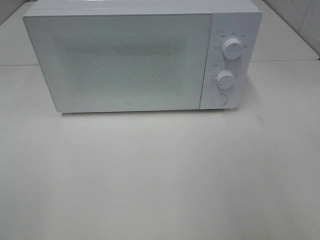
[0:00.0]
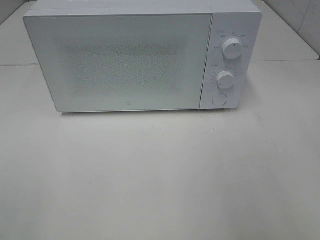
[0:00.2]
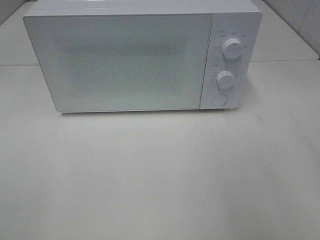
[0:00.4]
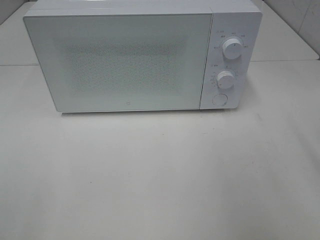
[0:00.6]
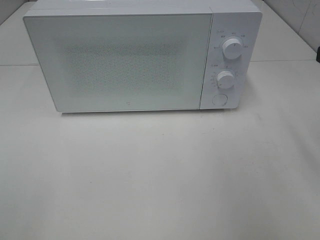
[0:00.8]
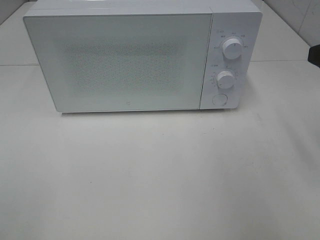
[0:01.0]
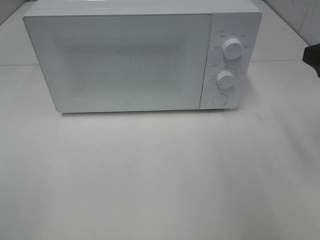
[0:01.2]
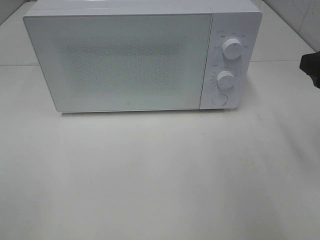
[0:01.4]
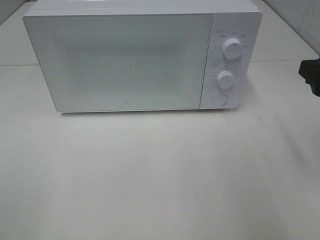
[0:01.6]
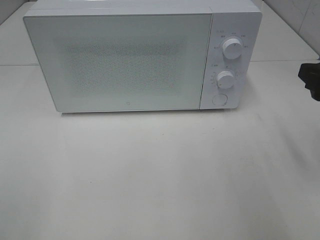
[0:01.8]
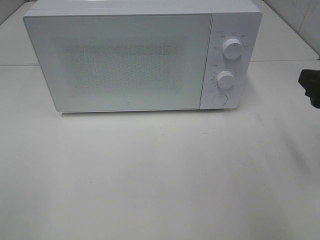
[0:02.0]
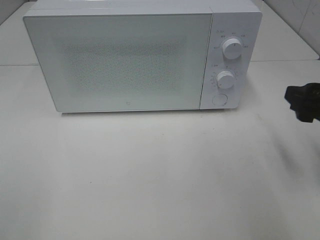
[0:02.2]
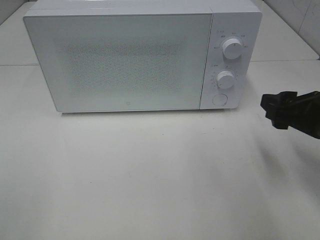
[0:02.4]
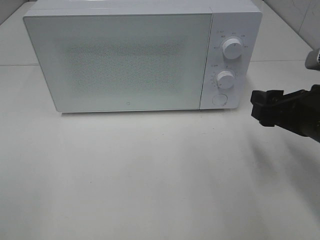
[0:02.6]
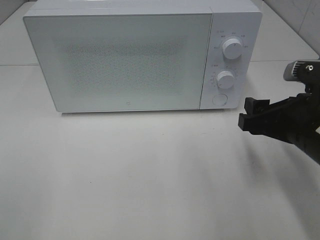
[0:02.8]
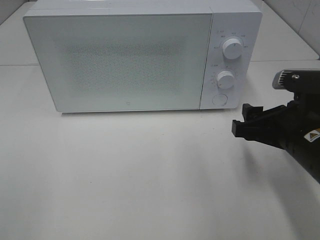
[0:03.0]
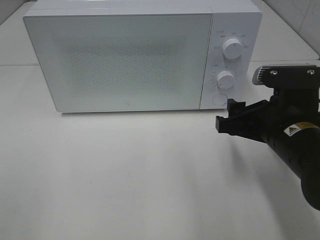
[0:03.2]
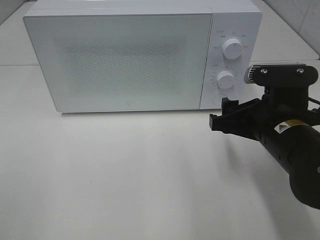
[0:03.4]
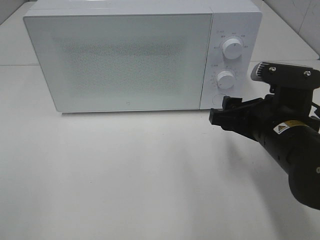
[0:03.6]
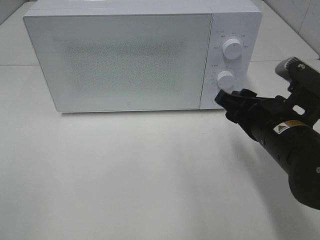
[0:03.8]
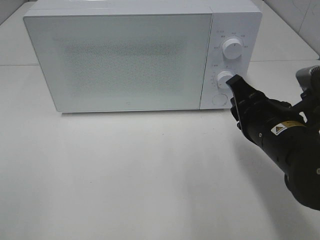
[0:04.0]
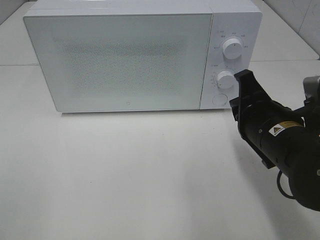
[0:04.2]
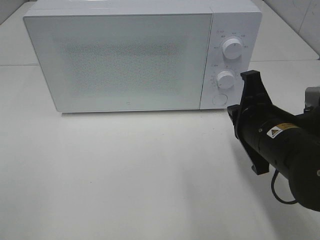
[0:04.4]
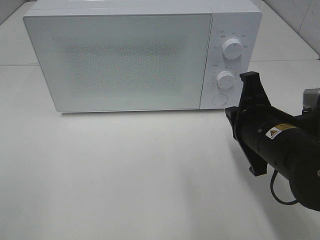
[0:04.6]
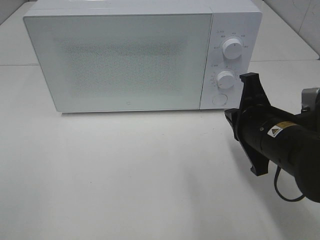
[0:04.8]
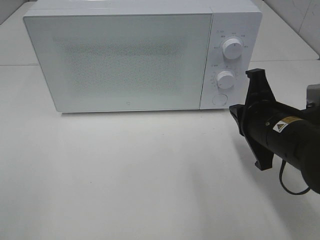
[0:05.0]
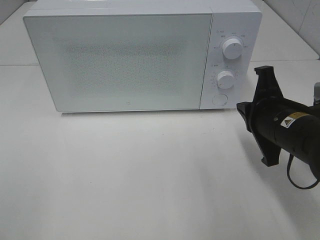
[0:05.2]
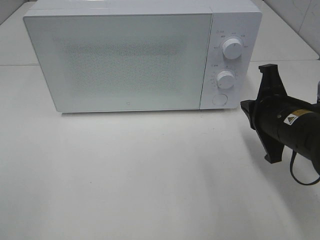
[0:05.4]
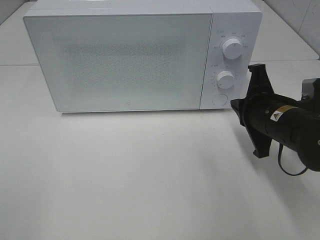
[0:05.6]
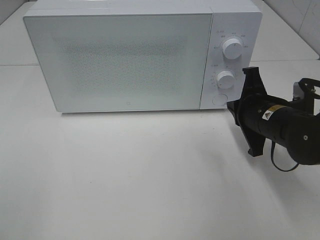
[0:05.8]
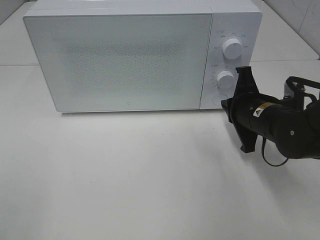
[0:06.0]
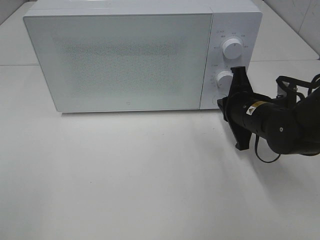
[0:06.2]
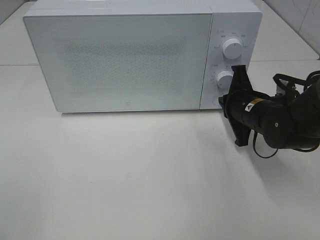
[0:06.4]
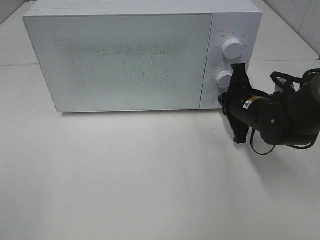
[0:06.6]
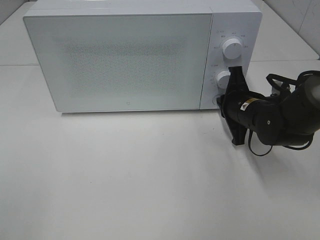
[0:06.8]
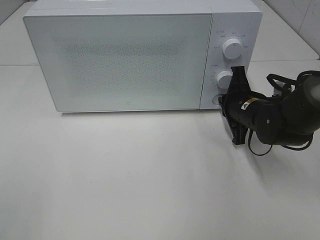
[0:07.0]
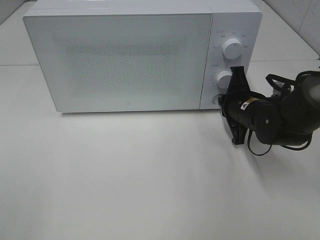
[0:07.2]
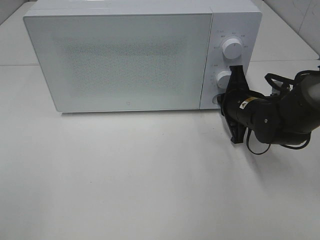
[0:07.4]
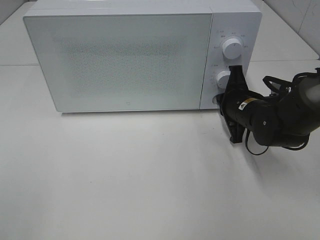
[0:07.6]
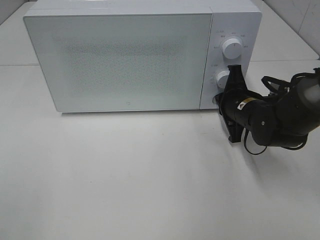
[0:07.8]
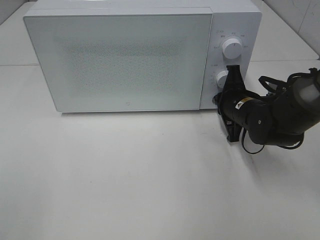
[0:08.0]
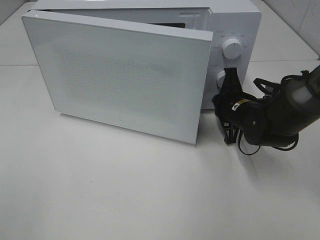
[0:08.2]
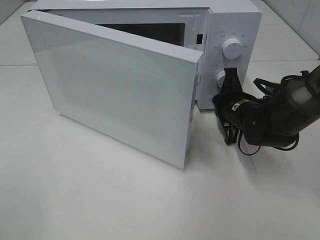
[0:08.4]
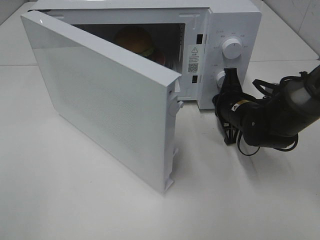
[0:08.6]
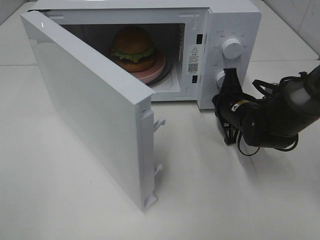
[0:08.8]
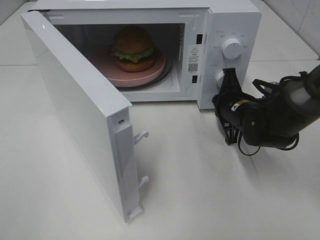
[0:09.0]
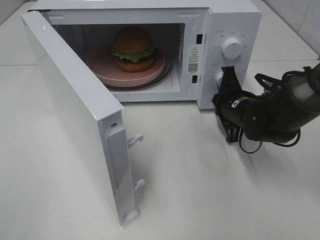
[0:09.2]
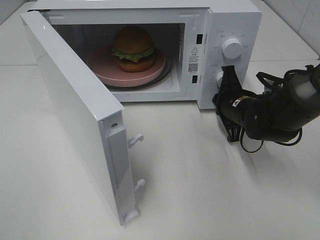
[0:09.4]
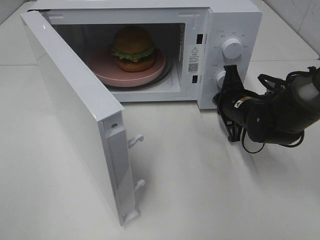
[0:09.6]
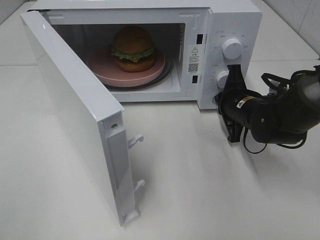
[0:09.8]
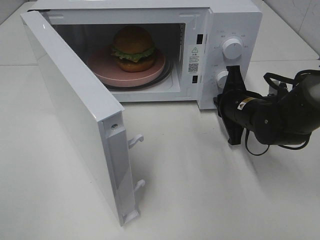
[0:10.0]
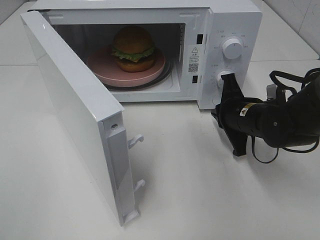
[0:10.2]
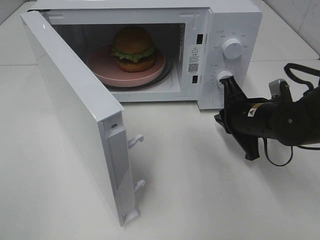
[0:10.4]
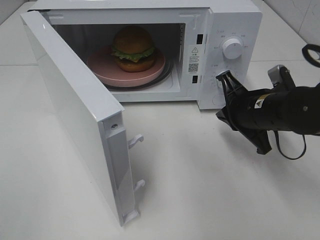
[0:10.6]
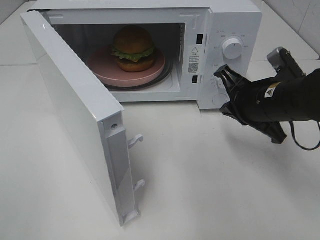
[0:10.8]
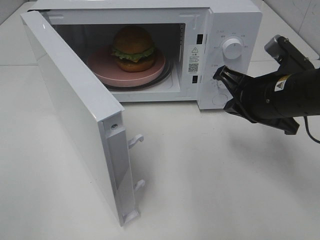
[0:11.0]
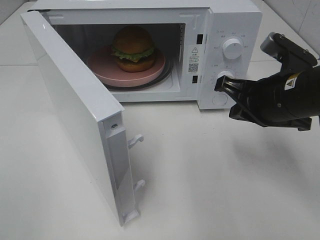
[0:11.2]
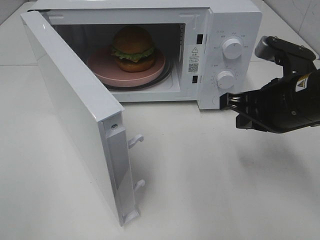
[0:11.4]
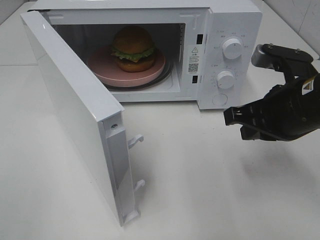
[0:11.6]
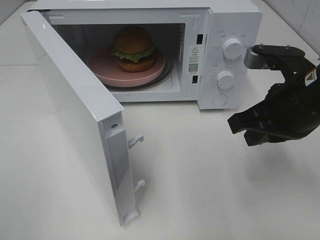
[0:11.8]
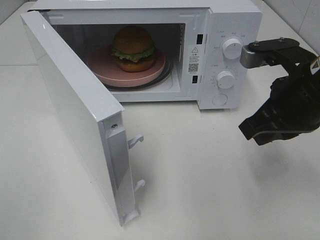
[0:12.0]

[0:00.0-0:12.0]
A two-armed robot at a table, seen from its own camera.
Task of the whole recording: Heat the burger.
Step, 0:00.0 to 0:10.0: Right hand: press the switch.
0:00.0 to 0:01.6: The right gripper is displaced forward and downward by roughly 15 cm.
0:01.6 to 0:03.0: The right gripper travels to the left and downward by approximately 10 cm.
0:03.0 to 0:04.4: The right gripper closes up.
0:04.4 to 0:06.0: The right gripper travels forward by some 10 cm.
0:06.0 to 0:07.6: The right gripper moves some 5 cm.
0:09.0 to 0:10.4: The right gripper is displaced backward by about 5 cm.
0:10.4 to 0:12.0: The right gripper shifts roughly 15 cm upward and backward.

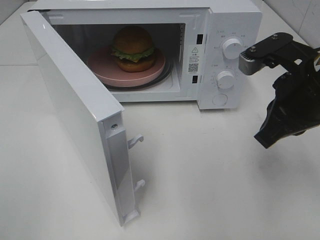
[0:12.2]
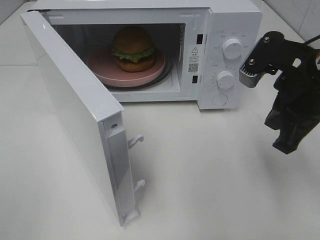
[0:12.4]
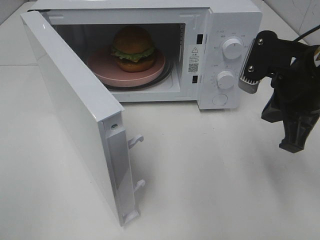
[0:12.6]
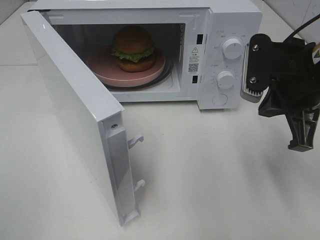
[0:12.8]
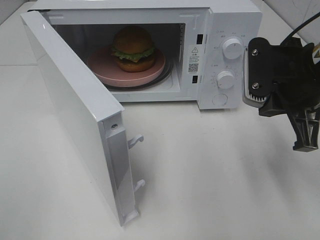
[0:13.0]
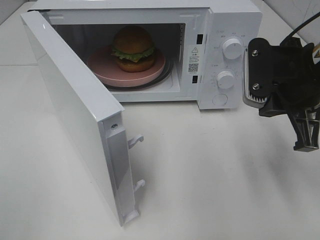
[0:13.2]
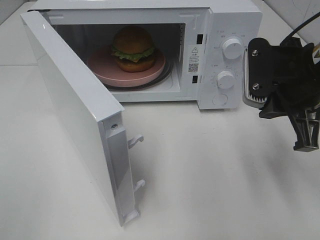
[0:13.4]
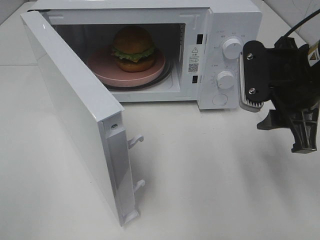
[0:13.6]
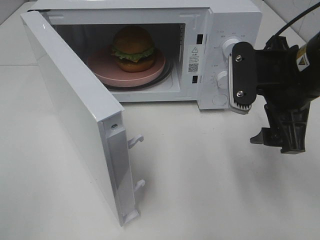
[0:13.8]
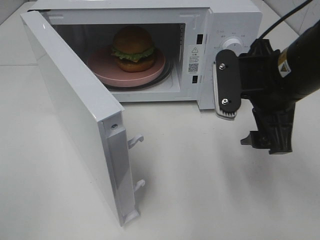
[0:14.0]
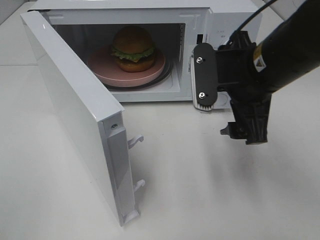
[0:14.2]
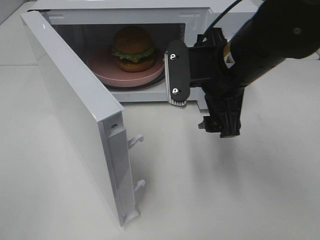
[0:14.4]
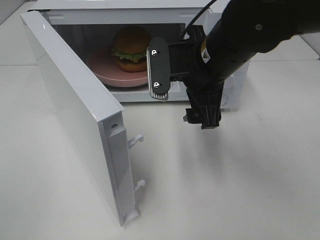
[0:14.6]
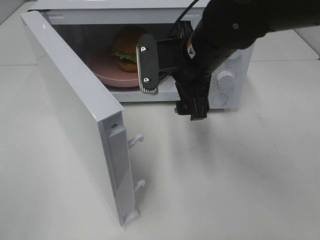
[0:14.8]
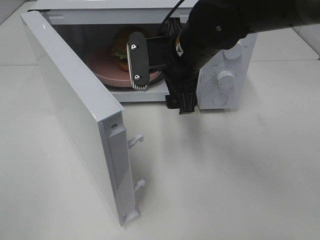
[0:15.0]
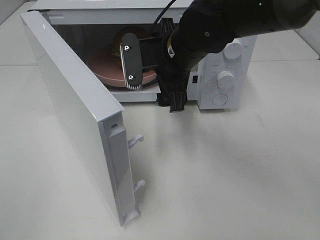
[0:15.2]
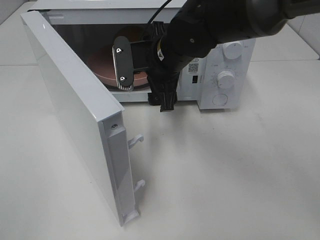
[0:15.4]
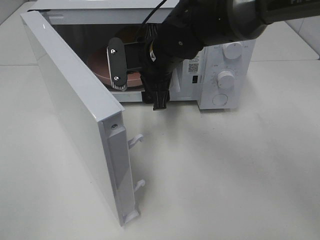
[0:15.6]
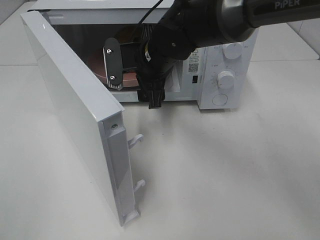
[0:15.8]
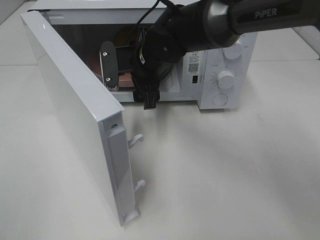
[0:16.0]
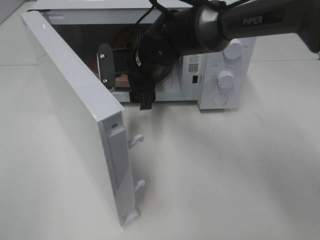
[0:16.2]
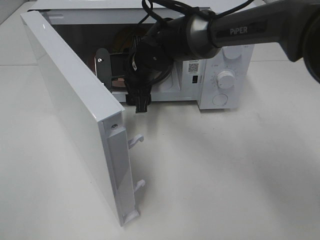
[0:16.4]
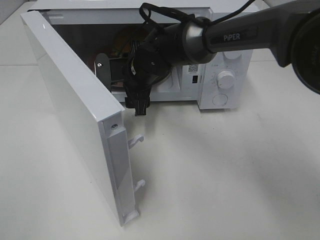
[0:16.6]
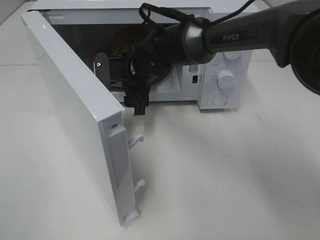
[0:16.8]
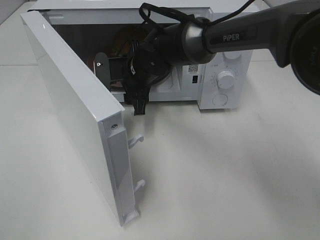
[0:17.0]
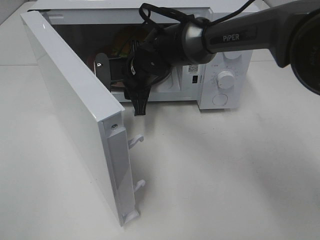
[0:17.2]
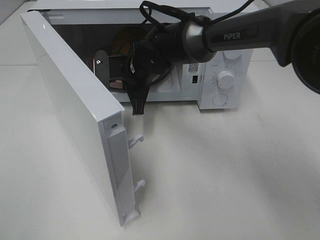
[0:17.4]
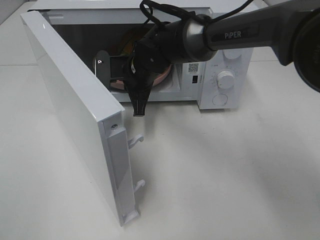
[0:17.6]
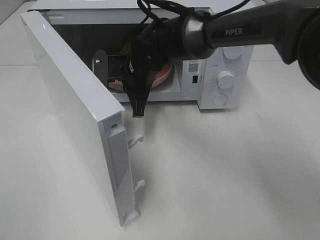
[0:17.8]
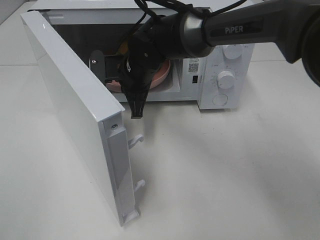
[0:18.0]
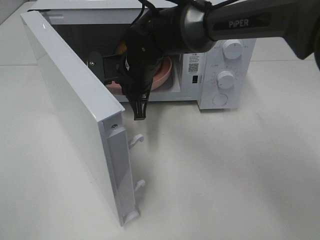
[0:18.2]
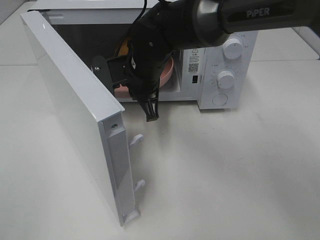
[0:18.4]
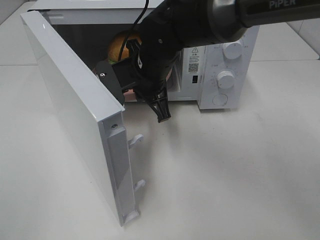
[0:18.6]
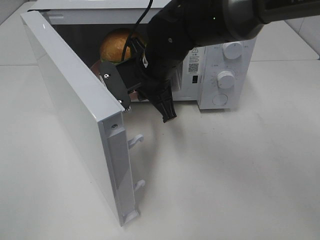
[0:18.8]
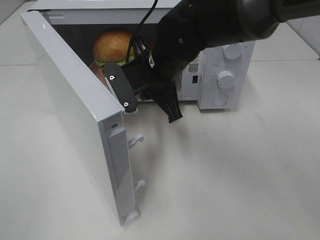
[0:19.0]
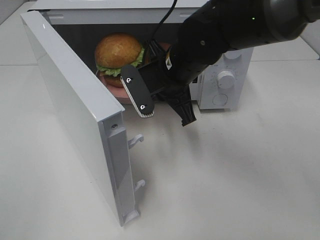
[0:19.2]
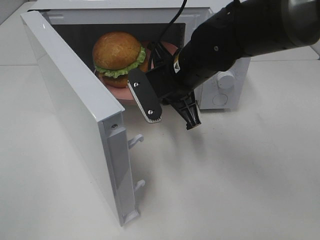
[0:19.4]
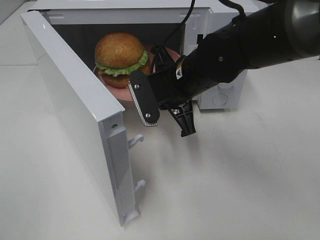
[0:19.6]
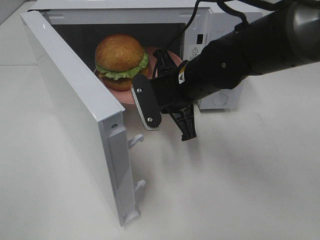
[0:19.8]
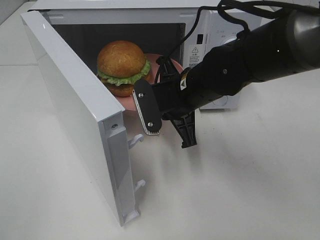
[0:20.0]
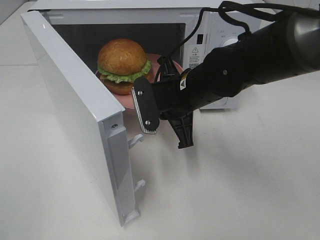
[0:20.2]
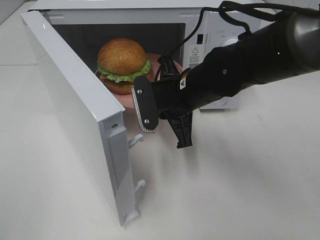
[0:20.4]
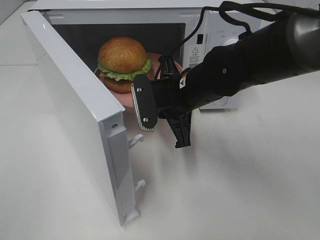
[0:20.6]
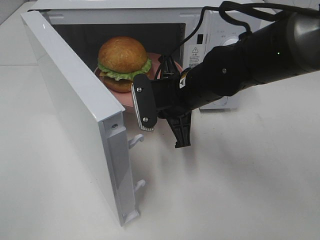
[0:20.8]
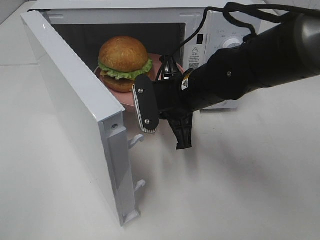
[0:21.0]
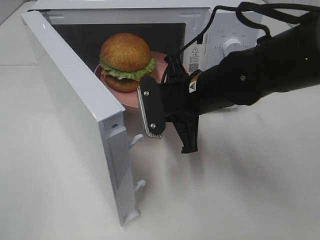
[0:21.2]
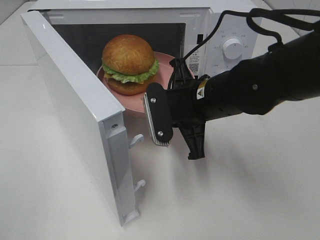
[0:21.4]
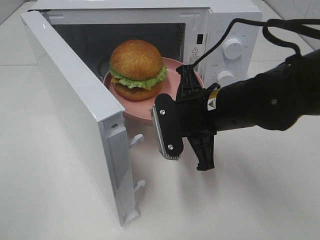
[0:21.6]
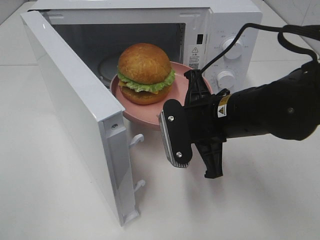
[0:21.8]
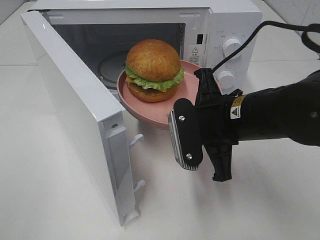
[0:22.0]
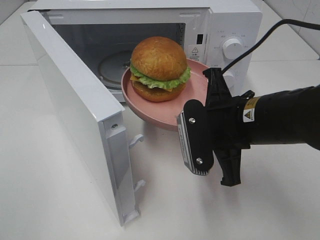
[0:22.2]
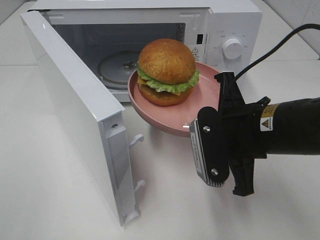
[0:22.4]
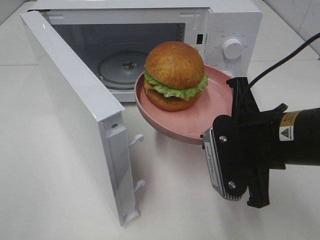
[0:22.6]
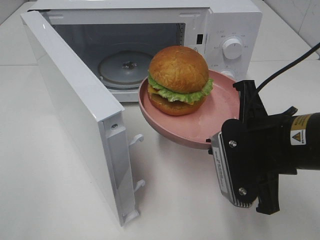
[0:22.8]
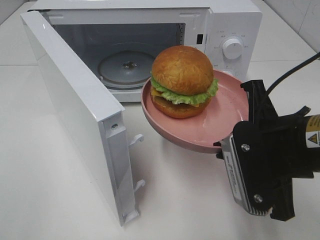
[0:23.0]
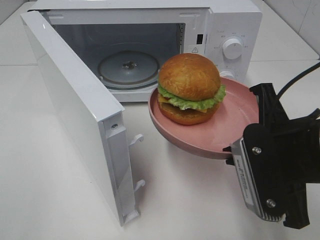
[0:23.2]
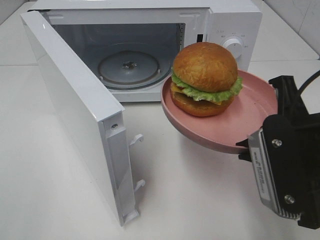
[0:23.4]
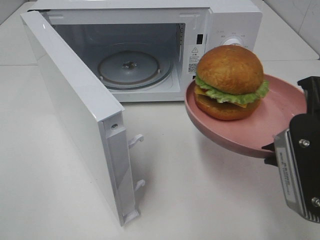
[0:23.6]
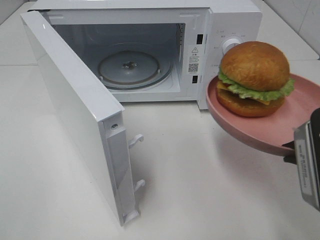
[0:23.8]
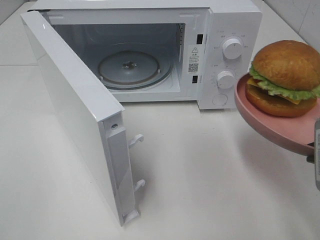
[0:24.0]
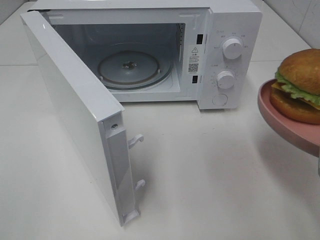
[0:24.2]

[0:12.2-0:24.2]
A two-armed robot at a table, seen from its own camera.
Task of the whole recording: Heat the burger.
Step, 0:12.2 to 0:17.2: Right hand: grab the plate with the hamburger.
0:12.2 to 0:13.8: The right gripper opens.
0:13.8 to 0:15.2: The right gripper is displaced to the left and forward by roughly 15 cm.
0:15.2 to 0:16.6: The right gripper shifts roughly 10 cm downward, forward and to the left.
0:16.6 to 0:18.2: The right gripper closes its fingers.
0:18.2 to 0:19.8: The right gripper goes approximately 10 cm to the right and backward.
0:19.8 to 0:21.2: There are only small adjustments of the grippers.
0:21.2 to 0:22.6: The right gripper is displaced backward and to the right by approximately 15 cm.
0:22.6 to 0:24.2: The right gripper shifts some 10 cm to the right and backward.
